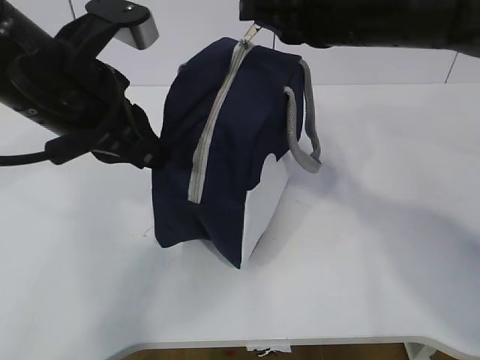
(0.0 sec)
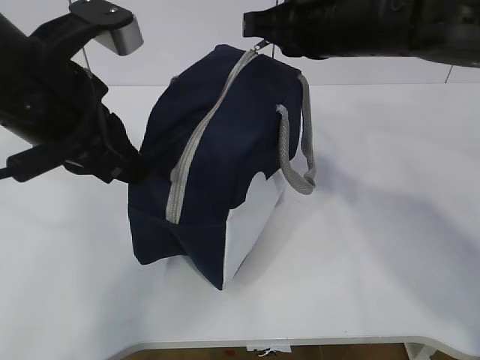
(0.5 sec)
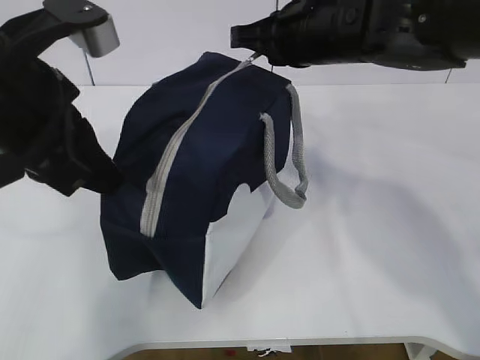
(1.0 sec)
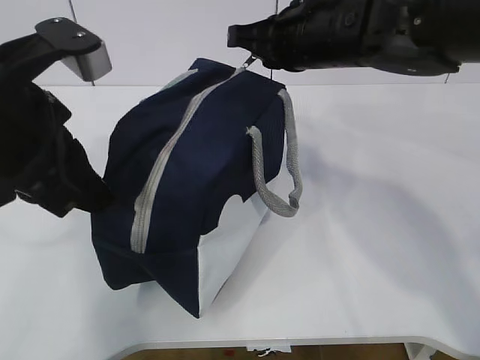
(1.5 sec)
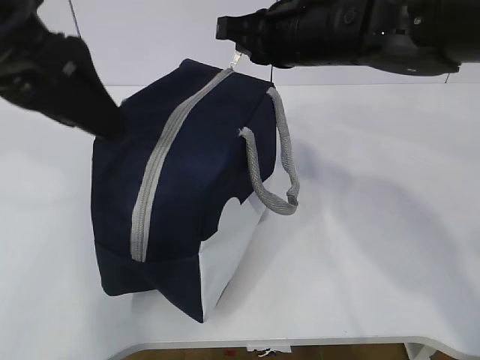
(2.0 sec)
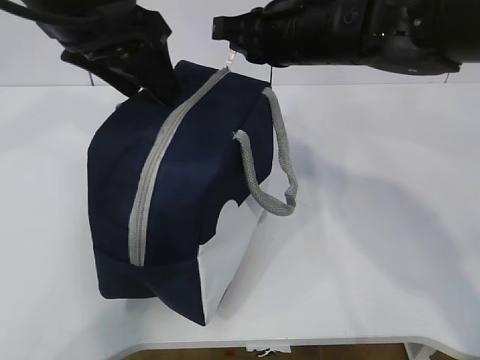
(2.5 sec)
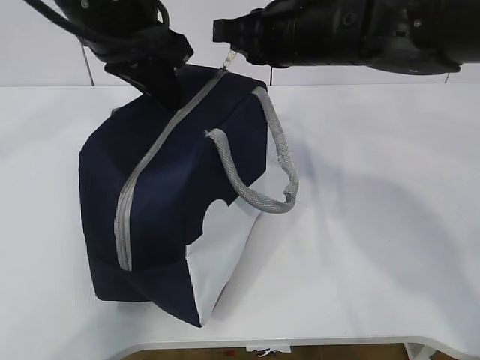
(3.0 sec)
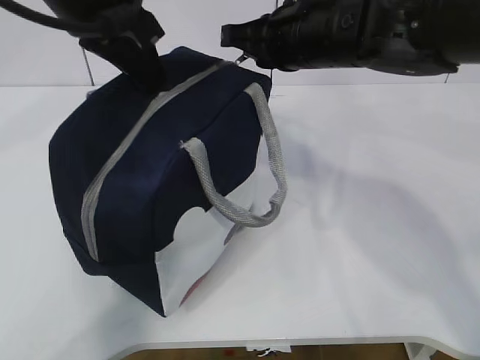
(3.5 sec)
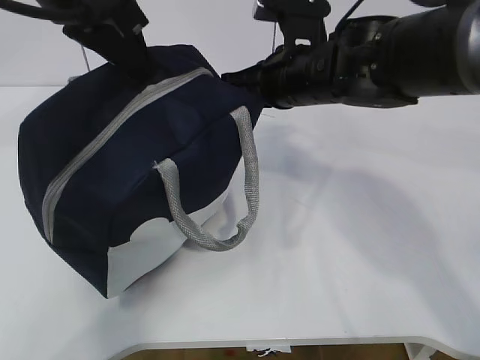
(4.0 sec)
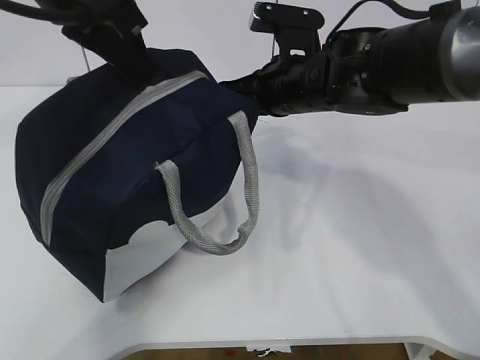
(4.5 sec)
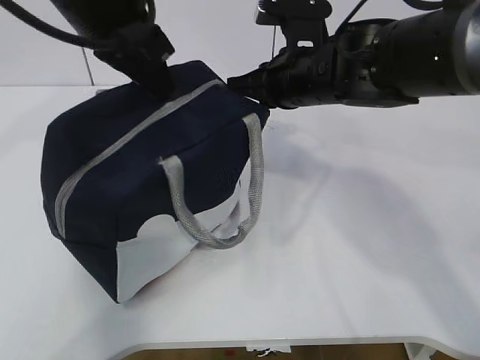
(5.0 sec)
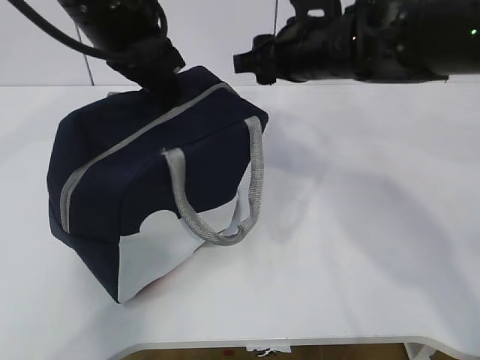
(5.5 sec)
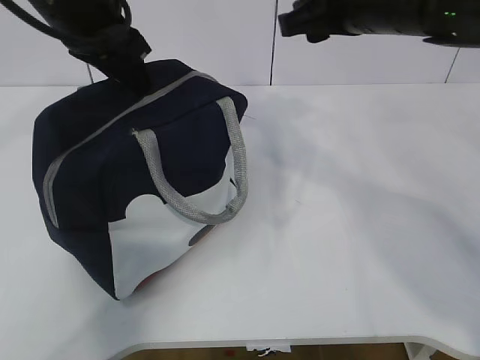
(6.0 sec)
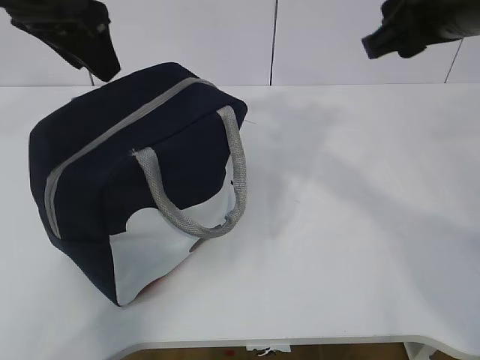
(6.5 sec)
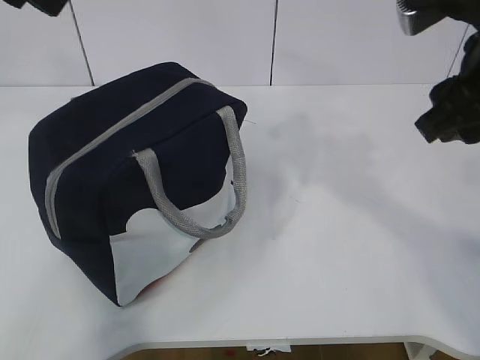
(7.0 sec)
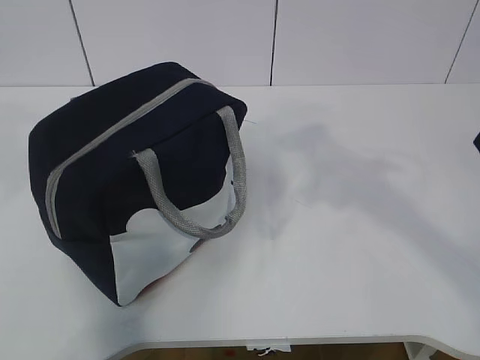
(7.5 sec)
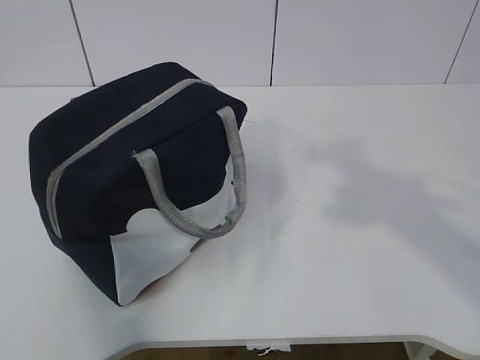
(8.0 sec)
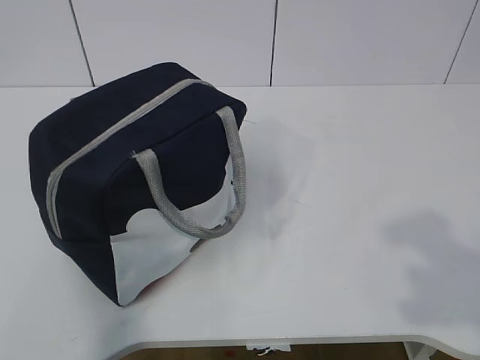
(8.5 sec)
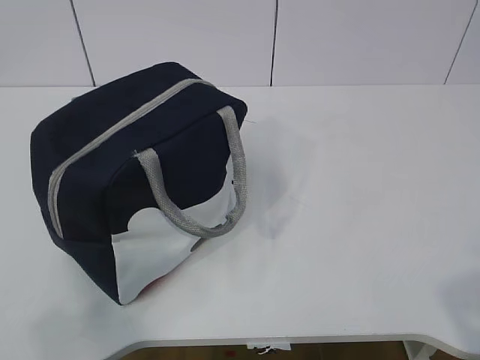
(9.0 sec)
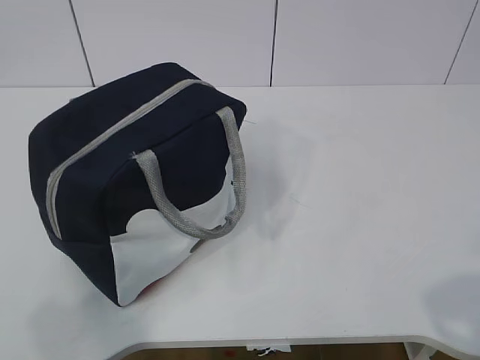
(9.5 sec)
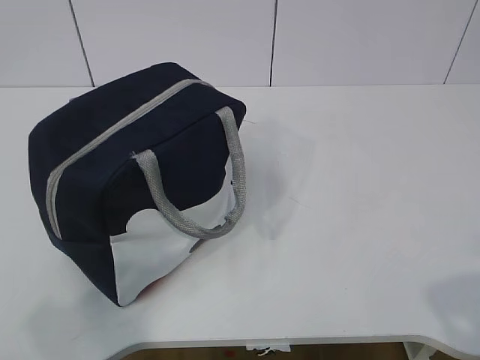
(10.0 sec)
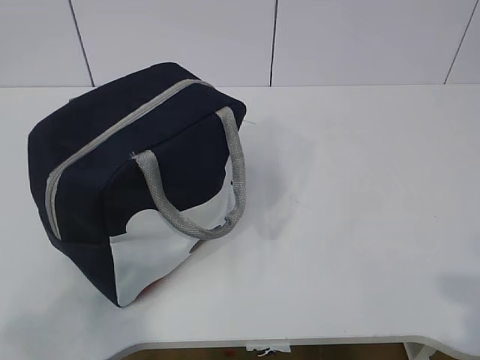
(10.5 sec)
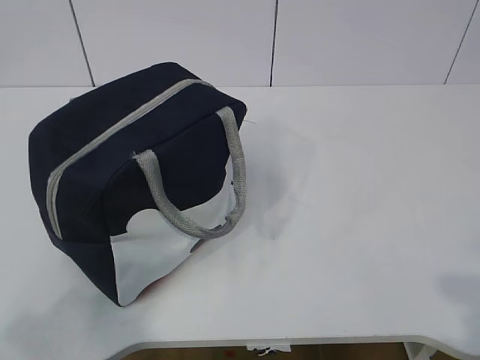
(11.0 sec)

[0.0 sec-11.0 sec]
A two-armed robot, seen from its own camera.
Step, 0.0 sec to 6.5 sec: zip up the zipper to close the bag.
0.0 sec to 2.0 sec: The right gripper moves forward, about 5 cm. Meanwhile the left gripper travels upward by approximately 10 cm, and opens.
2.0 sec to 3.5 sec: The left gripper travels forward by some 10 cm, and closes.
3.5 sec to 5.5 sec: The right gripper opens its fingers.
5.5 sec to 7.5 sec: The right gripper shifts approximately 25 cm backward, to the right and upward, while the left gripper goes approximately 25 cm backward, to the left and upward, and opens up.
7.5 sec to 9.0 sec: The right gripper is displaced backward and to the right by approximately 25 cm; the left gripper is displaced backward, downward and to the left by roughly 25 cm.
